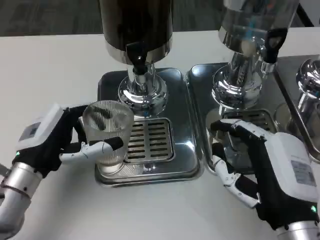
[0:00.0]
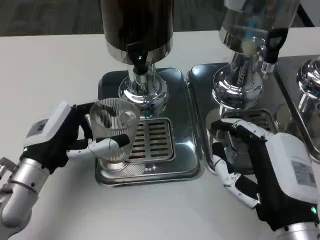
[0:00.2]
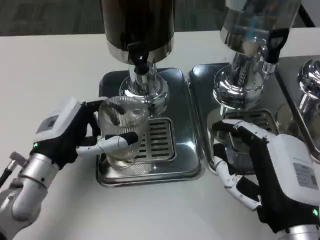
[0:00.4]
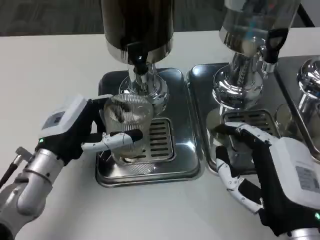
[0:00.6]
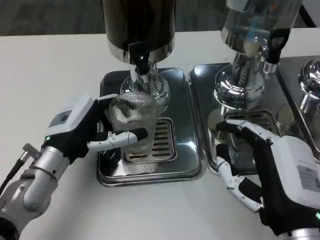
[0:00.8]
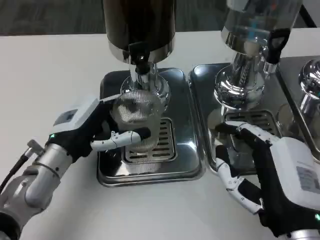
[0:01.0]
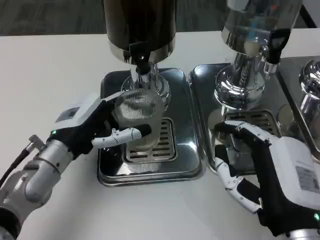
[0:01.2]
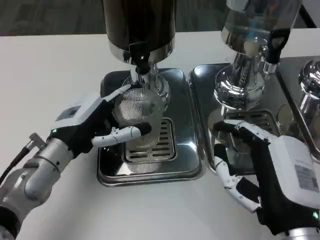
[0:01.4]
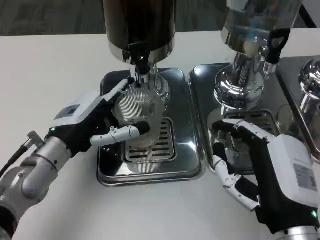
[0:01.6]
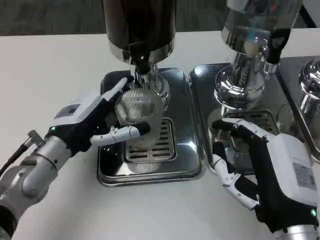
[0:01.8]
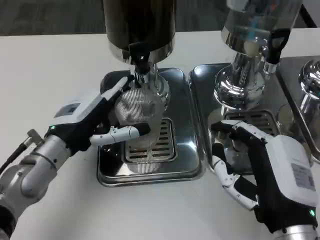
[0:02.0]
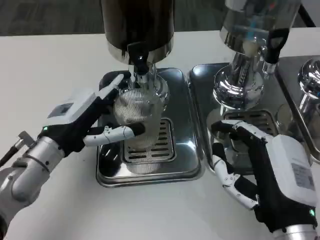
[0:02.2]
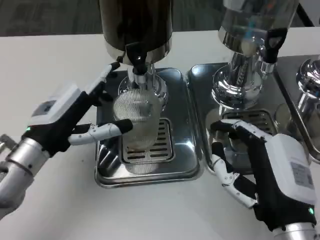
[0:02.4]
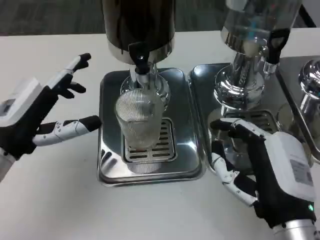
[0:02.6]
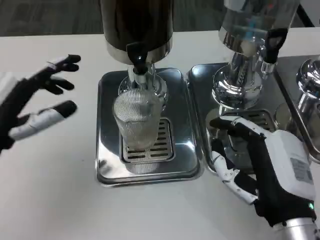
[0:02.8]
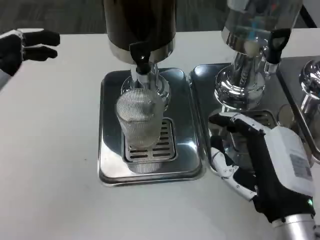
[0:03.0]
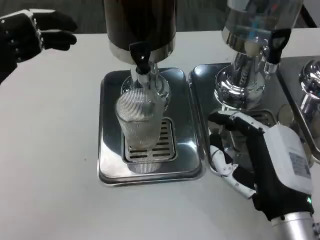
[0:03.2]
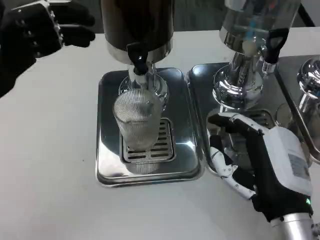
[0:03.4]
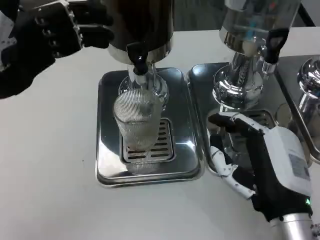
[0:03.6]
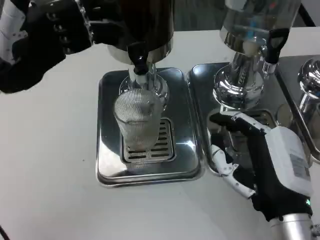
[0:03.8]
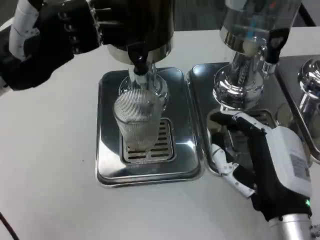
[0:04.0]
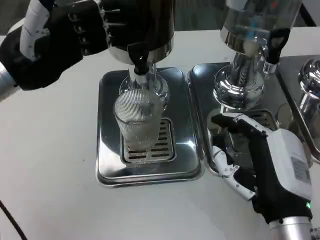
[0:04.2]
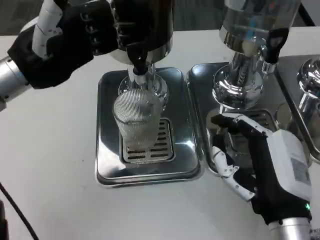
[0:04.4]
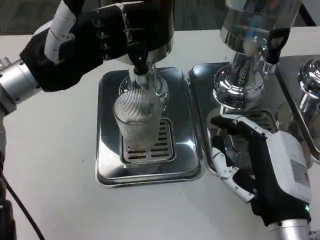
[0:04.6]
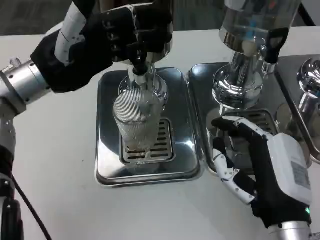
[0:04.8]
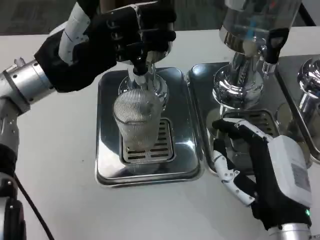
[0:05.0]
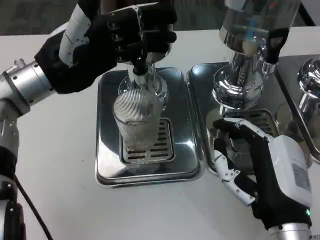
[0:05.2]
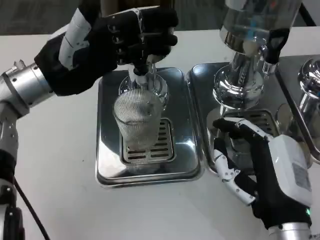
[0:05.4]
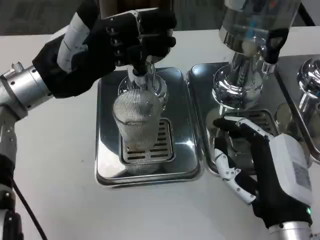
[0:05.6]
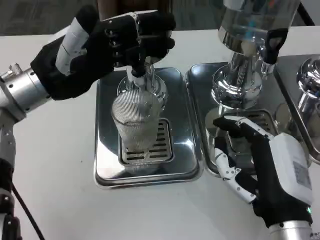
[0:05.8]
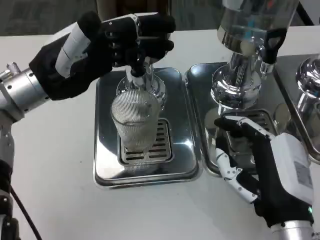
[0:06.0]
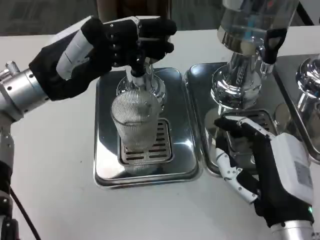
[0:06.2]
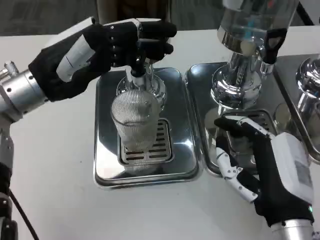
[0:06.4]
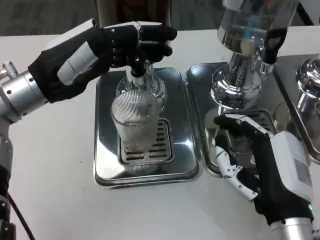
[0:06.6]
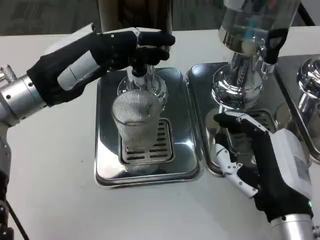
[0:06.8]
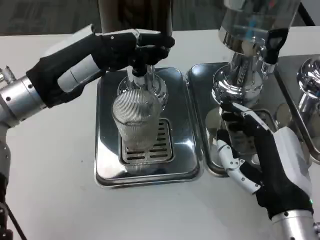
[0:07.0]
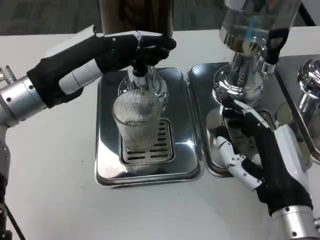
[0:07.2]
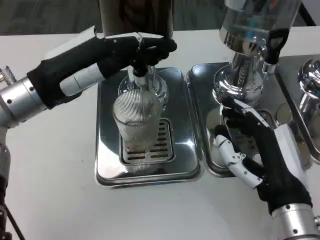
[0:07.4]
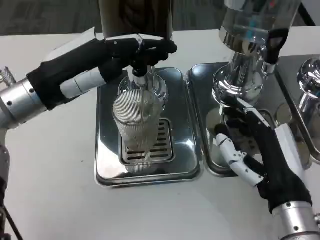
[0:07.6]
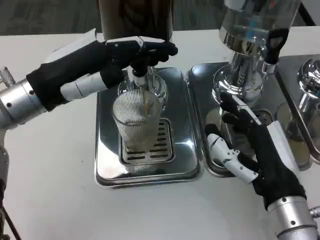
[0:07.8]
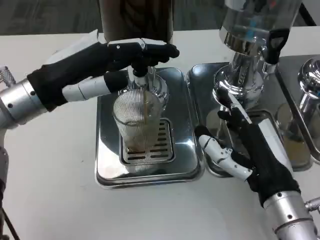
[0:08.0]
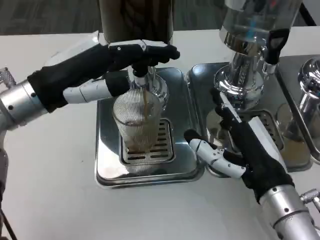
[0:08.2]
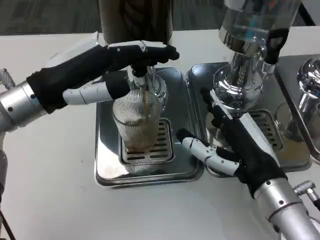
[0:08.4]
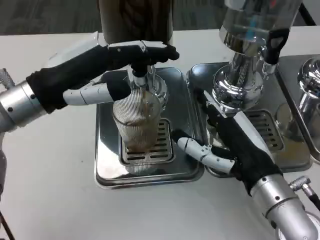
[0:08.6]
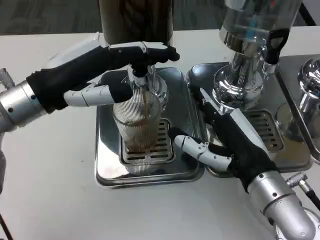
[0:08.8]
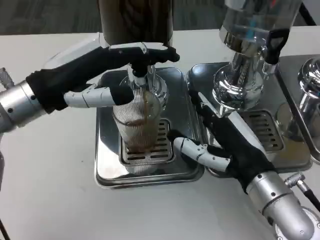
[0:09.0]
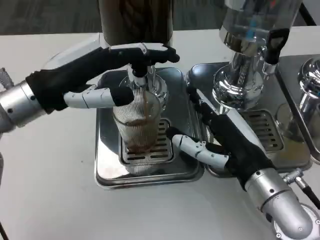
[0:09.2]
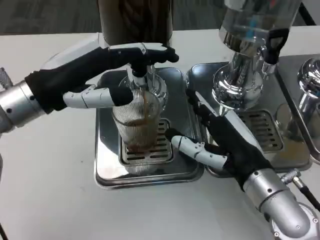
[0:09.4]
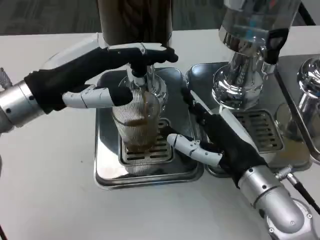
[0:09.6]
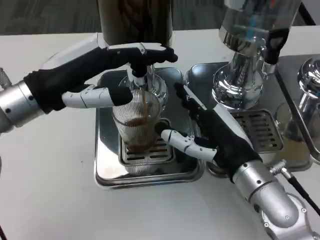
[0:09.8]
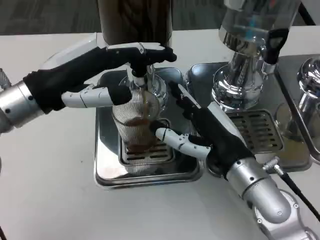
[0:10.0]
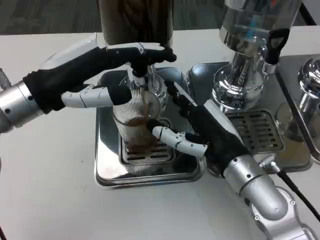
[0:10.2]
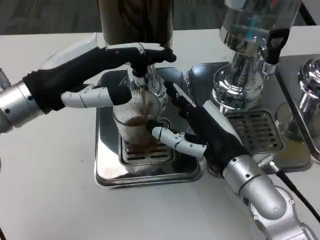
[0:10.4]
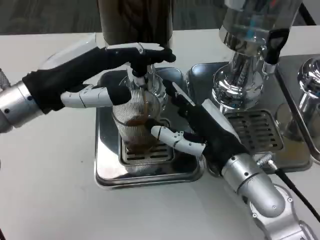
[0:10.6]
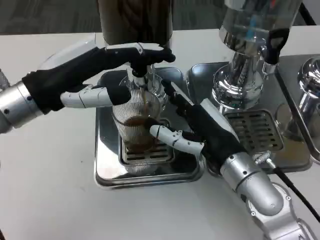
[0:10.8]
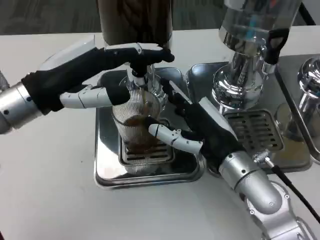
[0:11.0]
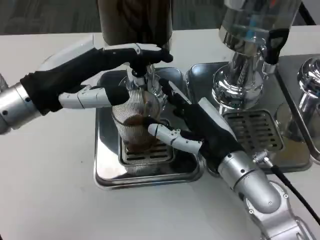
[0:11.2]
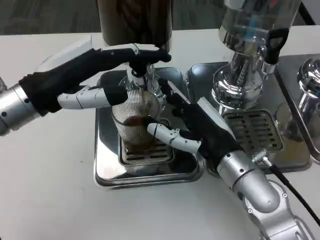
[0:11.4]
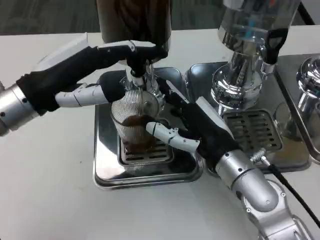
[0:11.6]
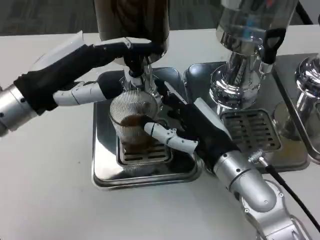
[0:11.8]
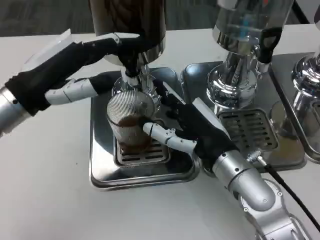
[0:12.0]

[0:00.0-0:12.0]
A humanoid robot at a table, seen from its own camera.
Task of the whole recording: Grasp the cup under the faucet to collect the drink, then remove the cup.
0:00.0 to 0:01.6: The left hand shifts by roughly 5 cm.
0:01.6 to 0:03.0: The left hand goes approximately 15 cm to the left and upward.
0:03.0 to 0:04.4: The left hand heads forward and to the right, covering some 10 cm.
0:09.0 to 0:10.4: The hands stay close to where they were, moving slightly.

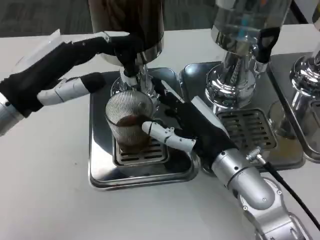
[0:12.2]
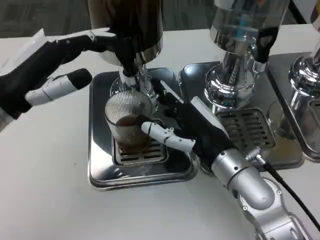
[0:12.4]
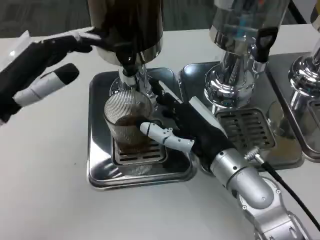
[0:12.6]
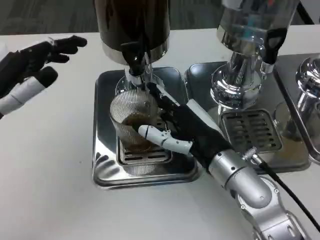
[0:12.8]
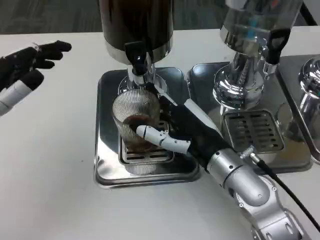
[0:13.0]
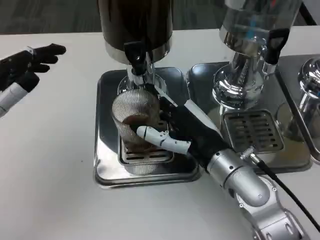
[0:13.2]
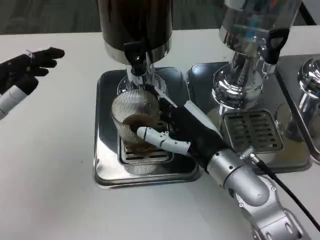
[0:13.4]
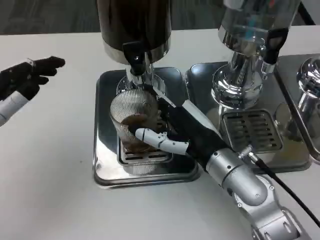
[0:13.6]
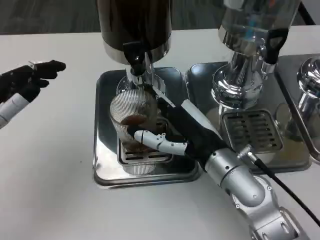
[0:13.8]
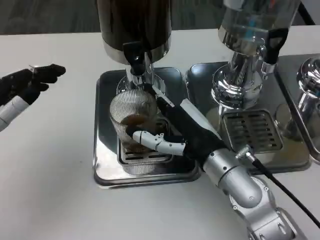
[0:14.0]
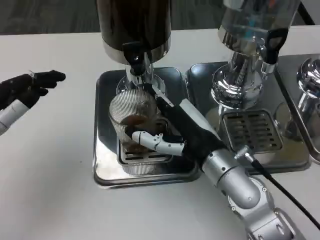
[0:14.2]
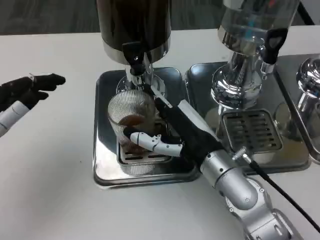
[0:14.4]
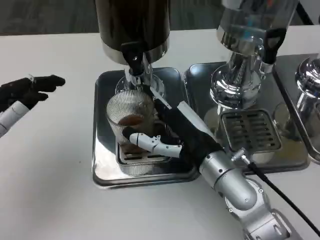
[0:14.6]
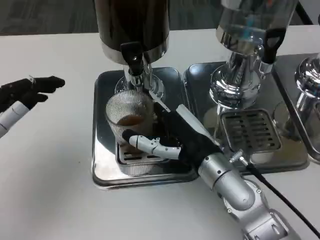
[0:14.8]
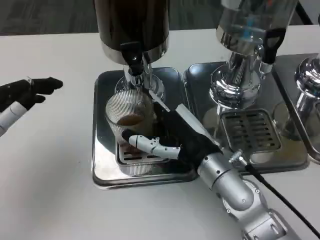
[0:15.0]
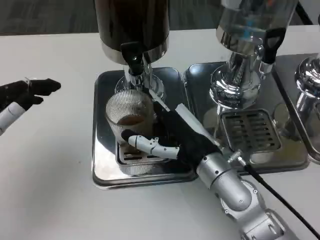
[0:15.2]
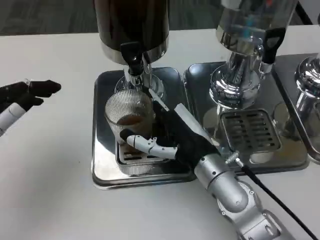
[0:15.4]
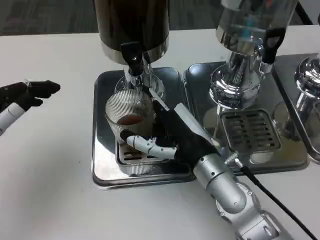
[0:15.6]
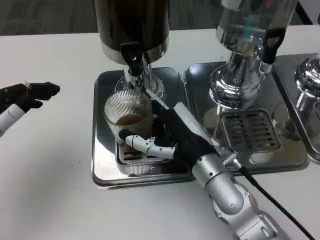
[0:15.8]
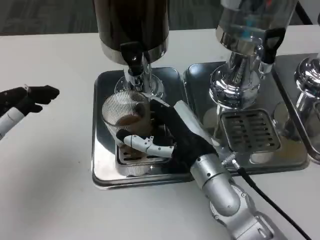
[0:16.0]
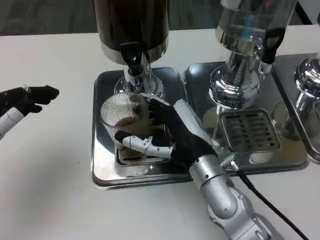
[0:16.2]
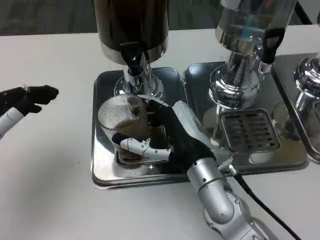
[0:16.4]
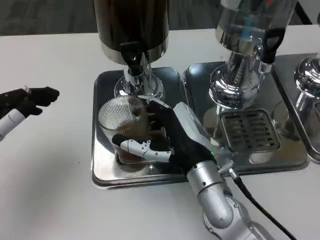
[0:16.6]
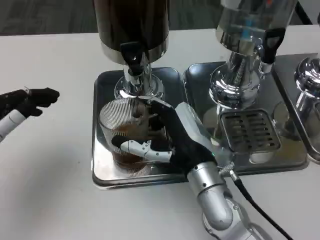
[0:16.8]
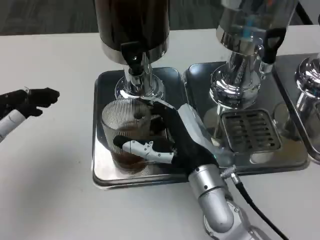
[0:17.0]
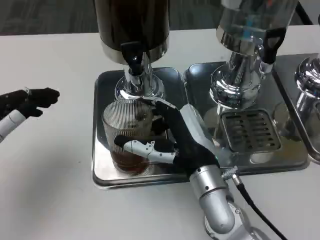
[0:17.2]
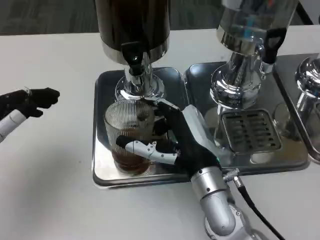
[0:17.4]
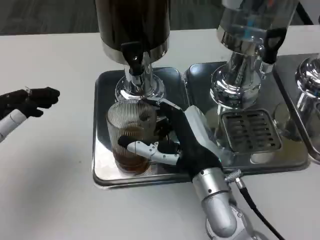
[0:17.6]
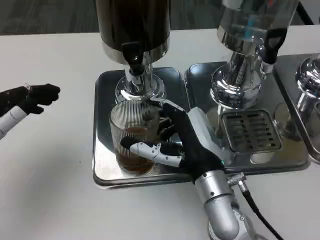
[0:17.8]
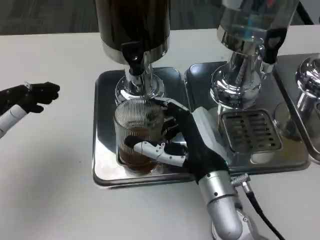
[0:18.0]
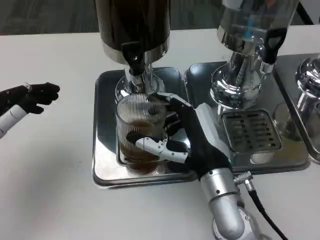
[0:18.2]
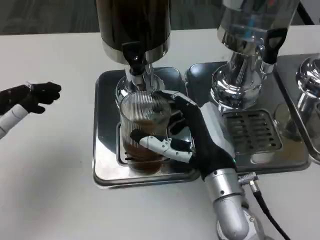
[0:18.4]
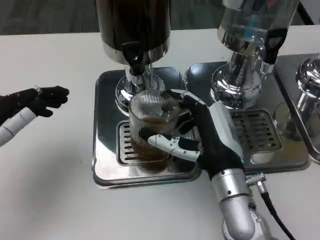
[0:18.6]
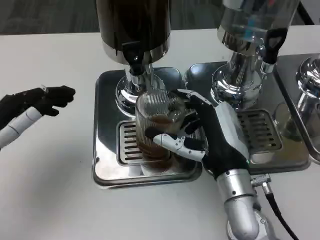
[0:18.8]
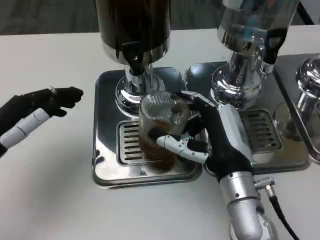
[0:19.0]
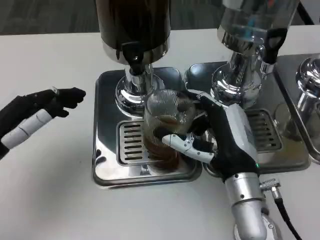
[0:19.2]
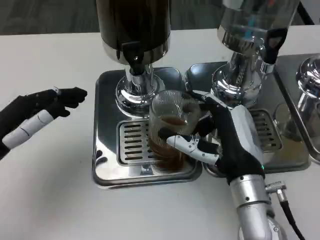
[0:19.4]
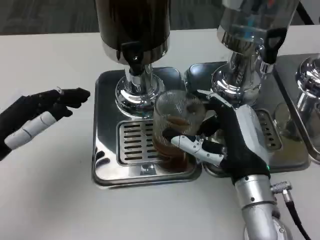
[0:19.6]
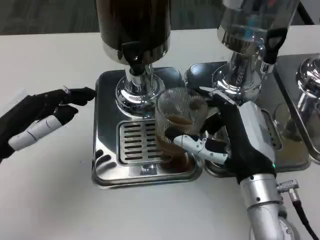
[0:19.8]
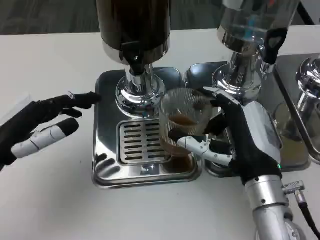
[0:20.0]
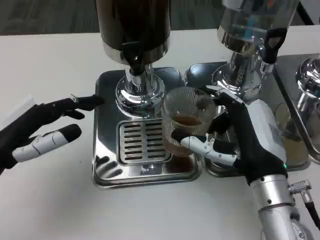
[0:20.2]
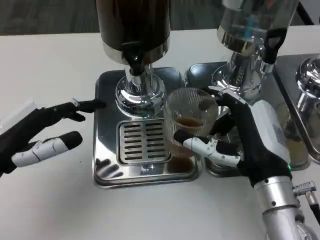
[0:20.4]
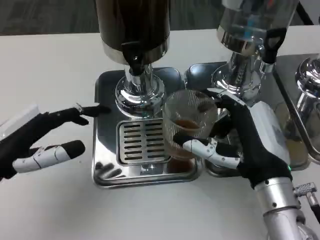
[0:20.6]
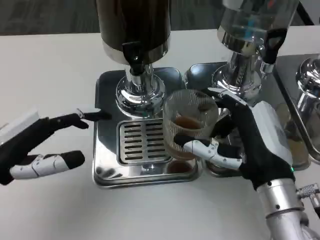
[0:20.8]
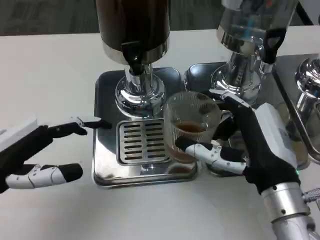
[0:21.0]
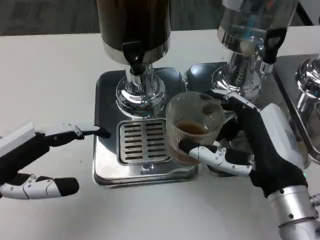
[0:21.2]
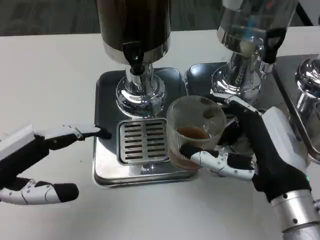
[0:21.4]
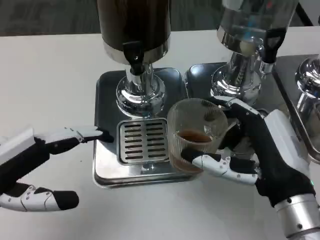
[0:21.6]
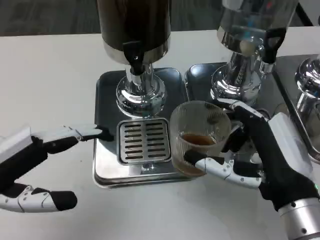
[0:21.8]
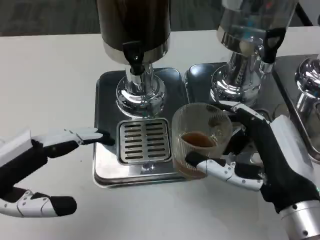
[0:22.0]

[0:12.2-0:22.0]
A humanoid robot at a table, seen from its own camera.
Task of the whole recording: Grasp the cup under the faucet to collect the drink, then remove the cup.
0:12.2 to 0:13.6: The left hand is displaced to the left by some 5 cm.
0:15.0 to 0:17.8: The hands move only a little.
0:20.6 to 0:22.0: The right hand ends up about 5 cm from where it was.

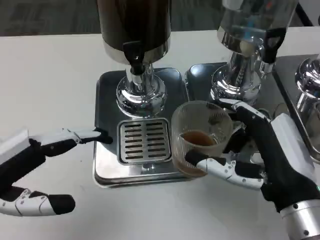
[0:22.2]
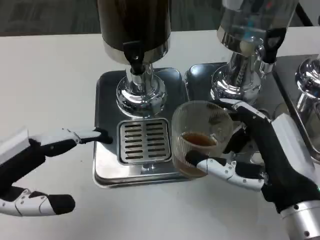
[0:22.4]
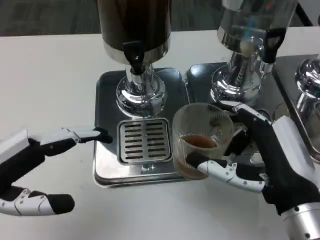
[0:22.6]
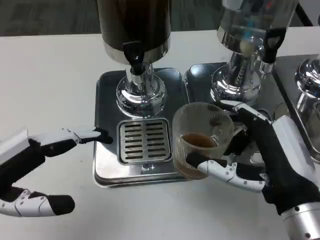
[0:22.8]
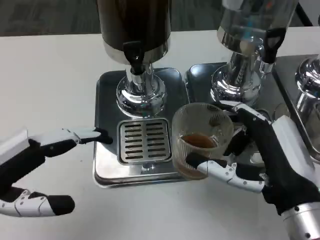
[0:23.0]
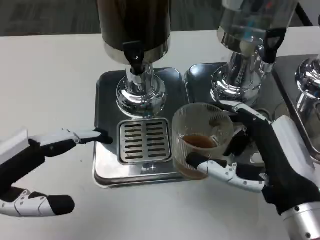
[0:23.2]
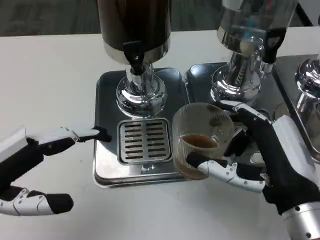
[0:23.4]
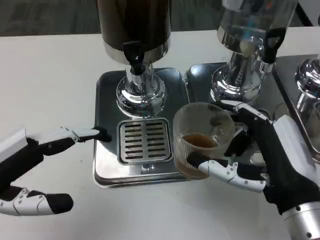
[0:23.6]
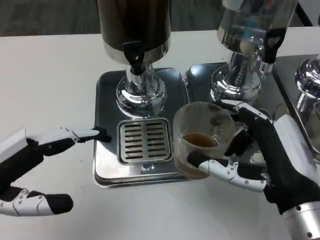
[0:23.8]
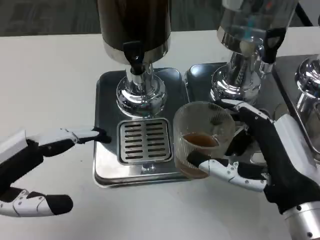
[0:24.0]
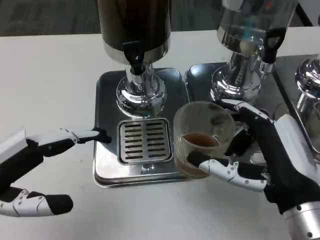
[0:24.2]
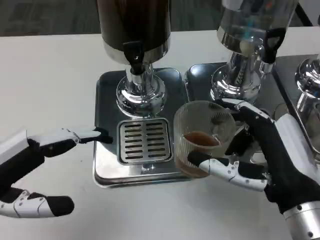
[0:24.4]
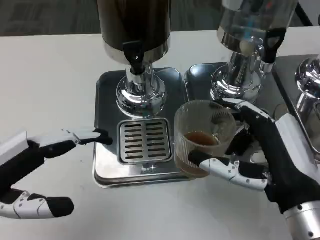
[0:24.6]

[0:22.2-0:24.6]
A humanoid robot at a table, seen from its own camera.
Task of the whole recording: Grasp the cup under the faucet to collect the drink, then remove the cup.
0:22.2 to 0:24.6: Both hands stay put.
